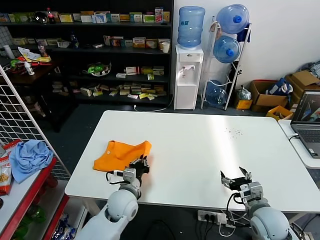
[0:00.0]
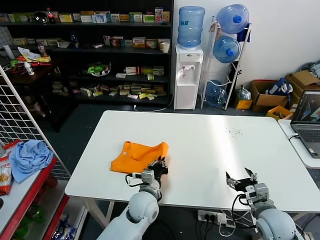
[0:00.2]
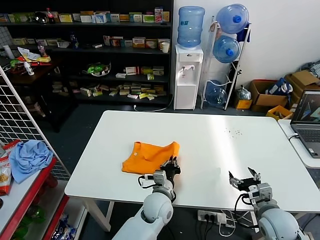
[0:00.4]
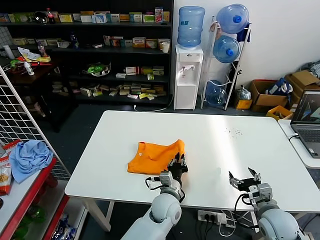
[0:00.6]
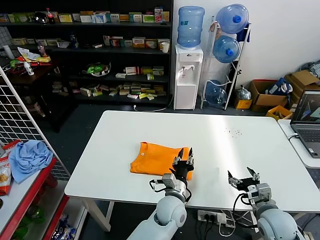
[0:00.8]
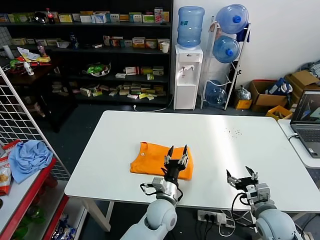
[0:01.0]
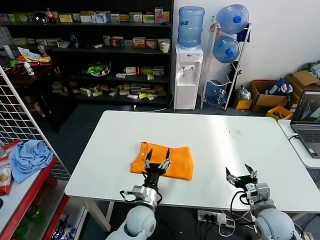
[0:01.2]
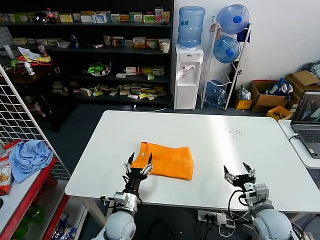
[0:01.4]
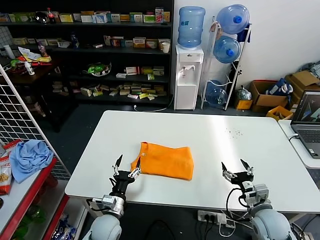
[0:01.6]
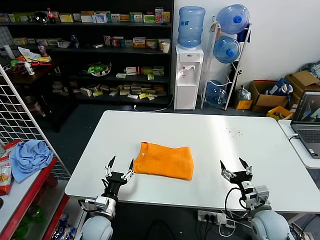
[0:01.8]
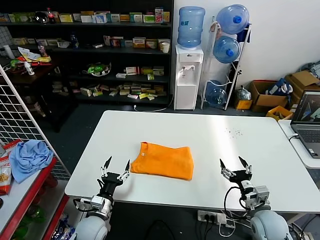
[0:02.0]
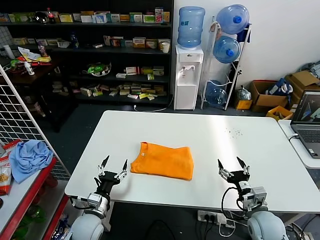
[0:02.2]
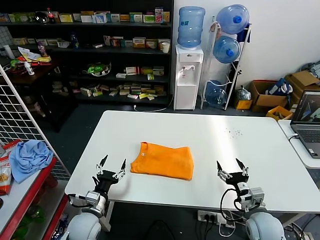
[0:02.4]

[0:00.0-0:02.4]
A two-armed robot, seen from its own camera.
Task of the whole recording: fold and organize the clothes.
0:00.0 to 0:01.2: The left gripper goes some 10 cm to the right and downward, and opens.
0:01.2 to 0:02.4: The left gripper goes approximately 20 cm to the left.
